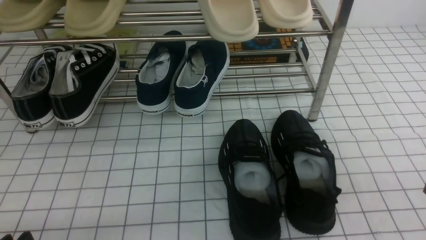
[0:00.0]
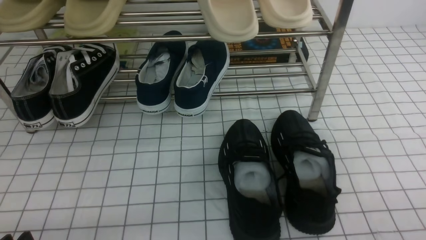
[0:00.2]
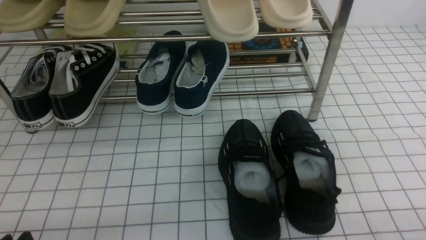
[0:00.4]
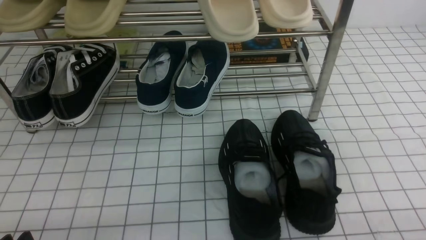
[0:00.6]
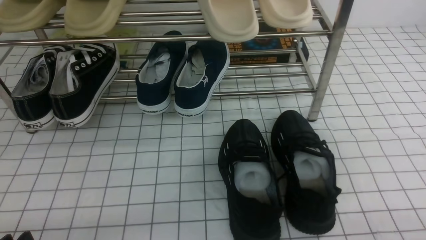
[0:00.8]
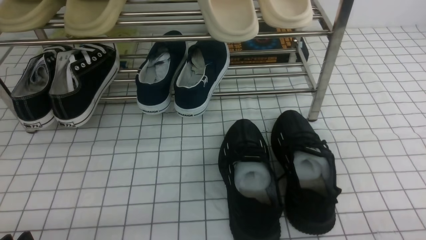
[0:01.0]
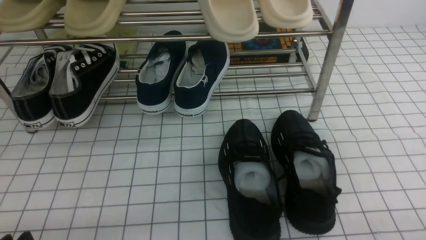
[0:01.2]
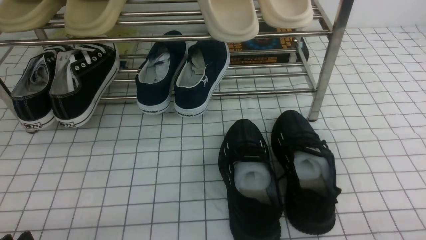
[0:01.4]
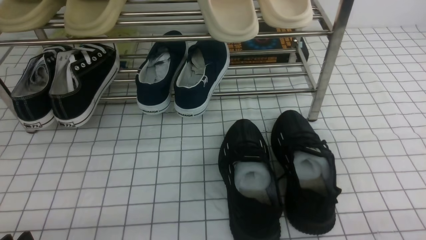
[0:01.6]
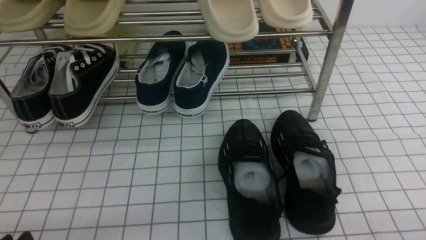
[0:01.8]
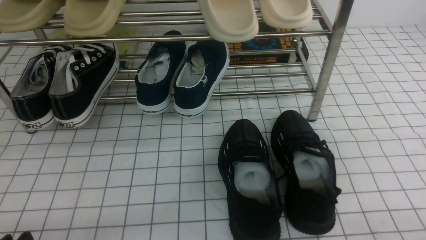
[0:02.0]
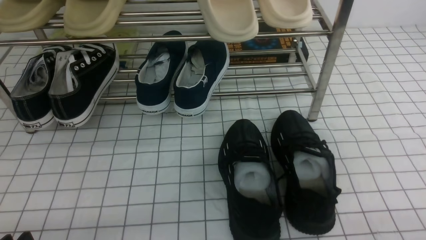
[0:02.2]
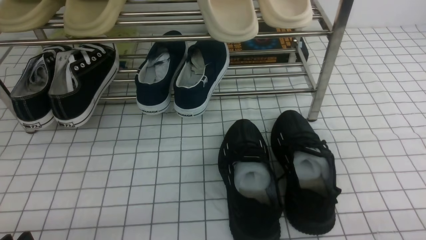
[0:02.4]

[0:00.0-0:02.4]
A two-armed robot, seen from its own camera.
0:01.2 to 0:02.4: Neither gripper changes place.
